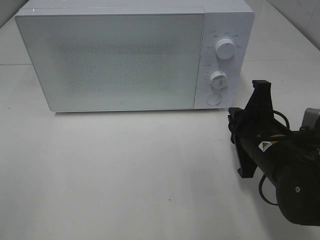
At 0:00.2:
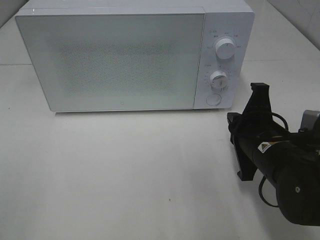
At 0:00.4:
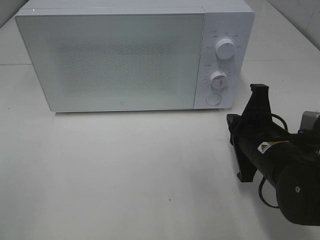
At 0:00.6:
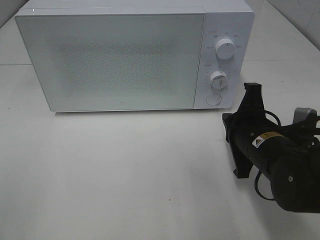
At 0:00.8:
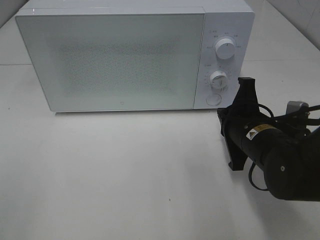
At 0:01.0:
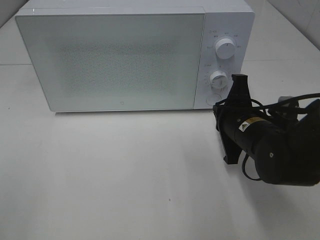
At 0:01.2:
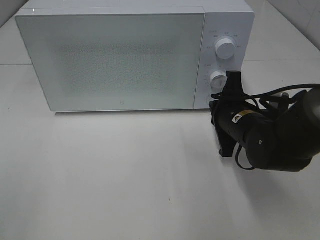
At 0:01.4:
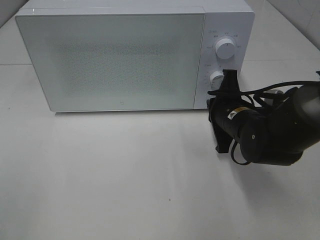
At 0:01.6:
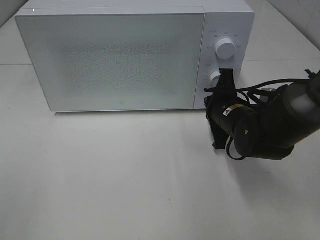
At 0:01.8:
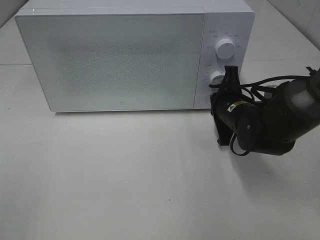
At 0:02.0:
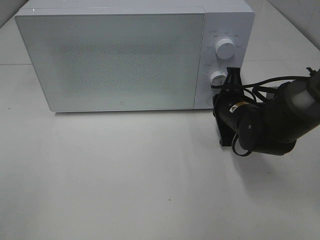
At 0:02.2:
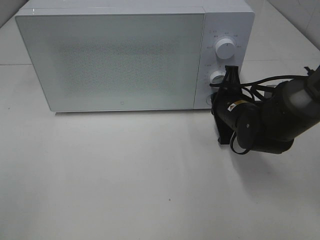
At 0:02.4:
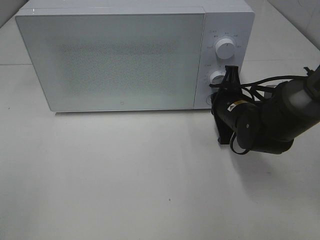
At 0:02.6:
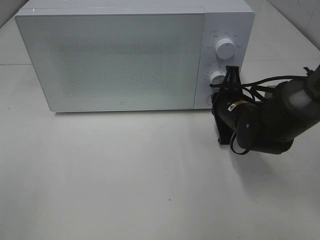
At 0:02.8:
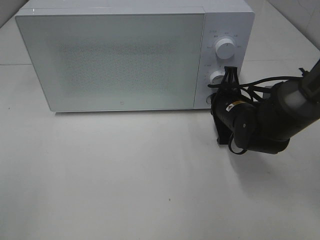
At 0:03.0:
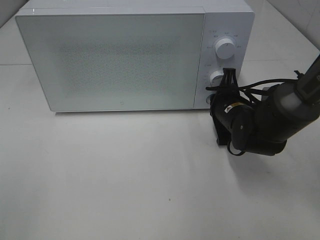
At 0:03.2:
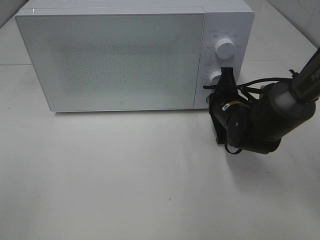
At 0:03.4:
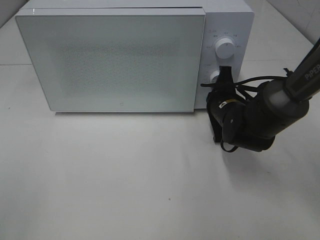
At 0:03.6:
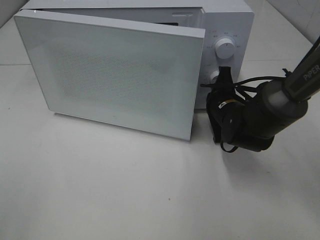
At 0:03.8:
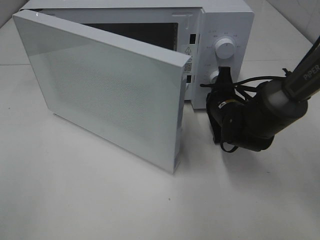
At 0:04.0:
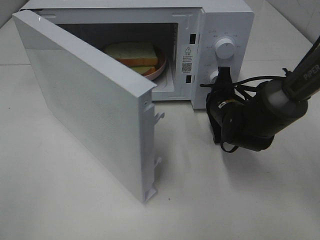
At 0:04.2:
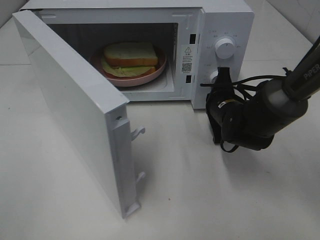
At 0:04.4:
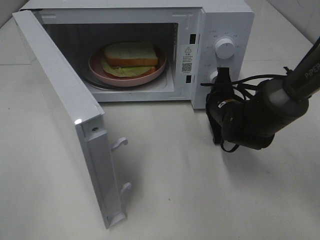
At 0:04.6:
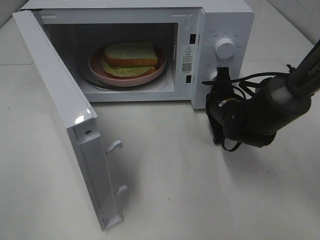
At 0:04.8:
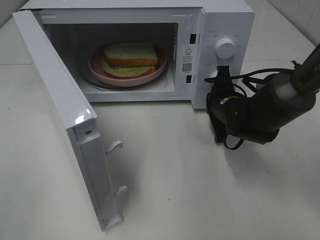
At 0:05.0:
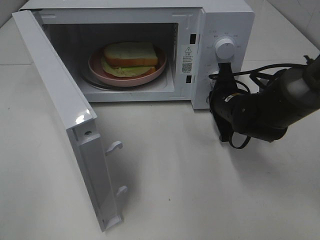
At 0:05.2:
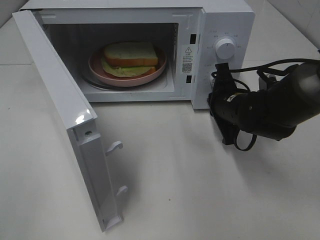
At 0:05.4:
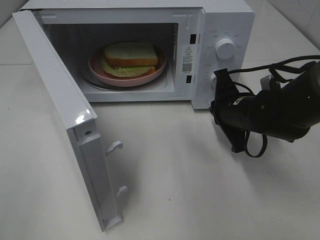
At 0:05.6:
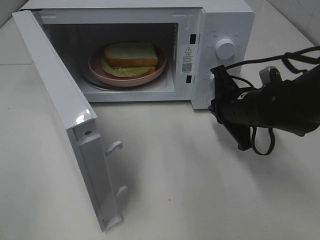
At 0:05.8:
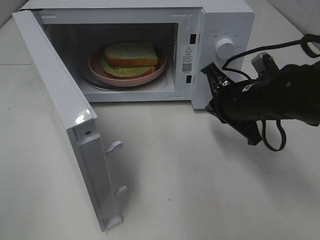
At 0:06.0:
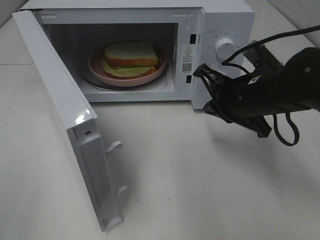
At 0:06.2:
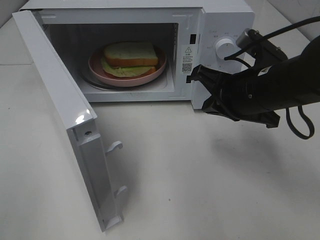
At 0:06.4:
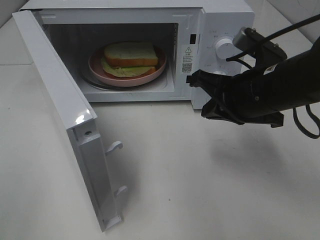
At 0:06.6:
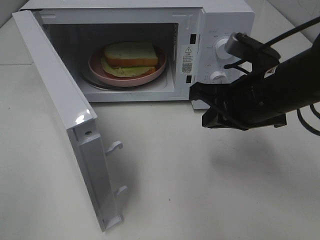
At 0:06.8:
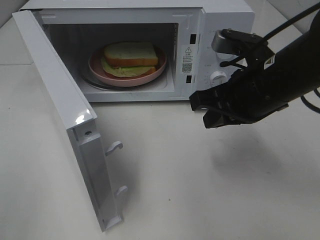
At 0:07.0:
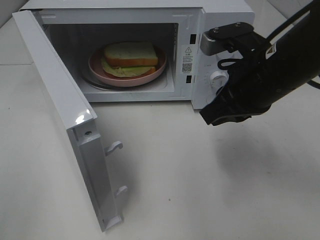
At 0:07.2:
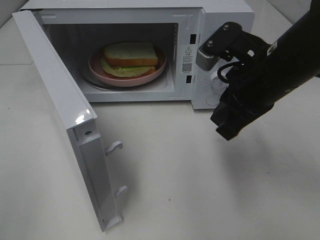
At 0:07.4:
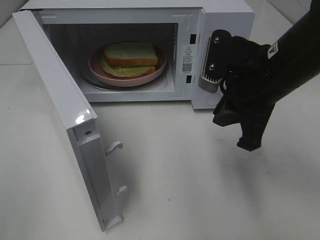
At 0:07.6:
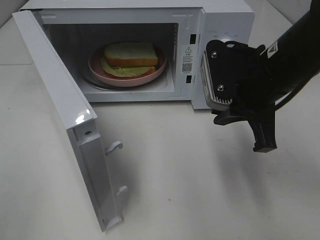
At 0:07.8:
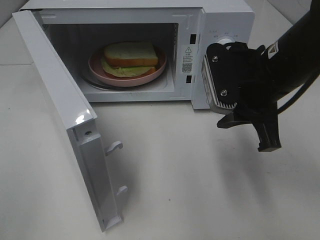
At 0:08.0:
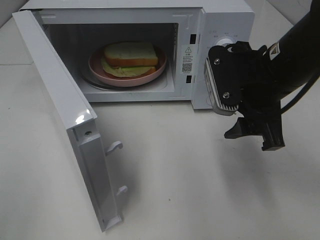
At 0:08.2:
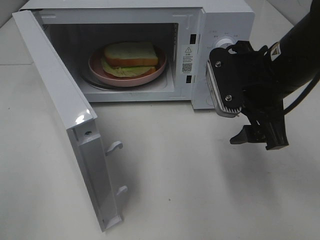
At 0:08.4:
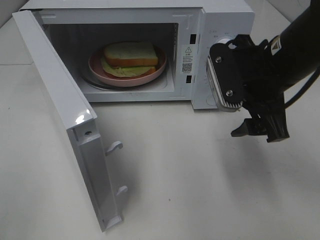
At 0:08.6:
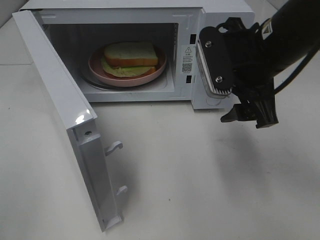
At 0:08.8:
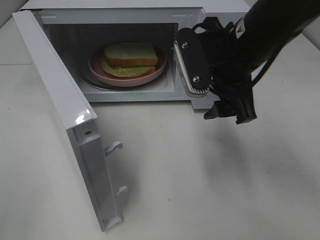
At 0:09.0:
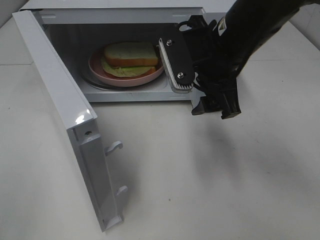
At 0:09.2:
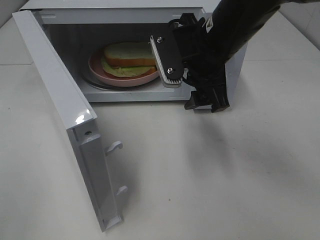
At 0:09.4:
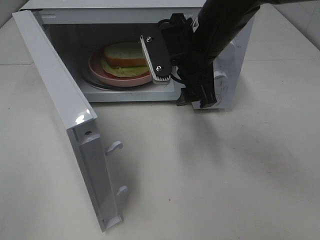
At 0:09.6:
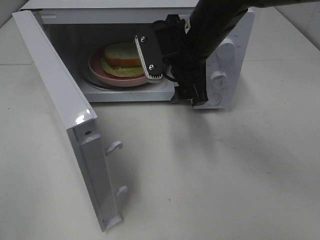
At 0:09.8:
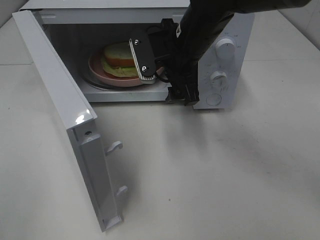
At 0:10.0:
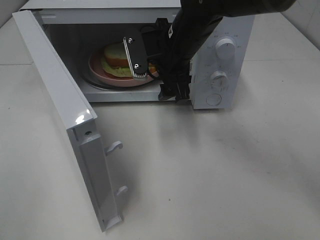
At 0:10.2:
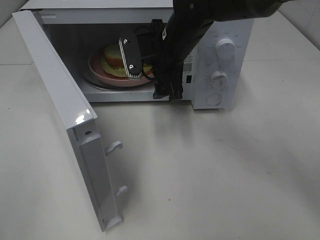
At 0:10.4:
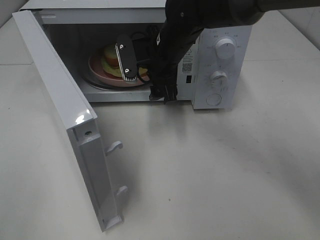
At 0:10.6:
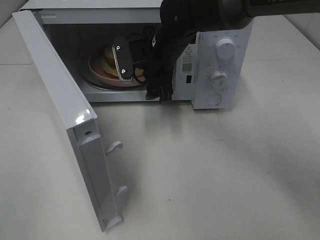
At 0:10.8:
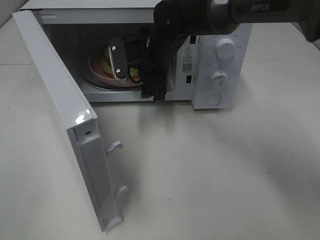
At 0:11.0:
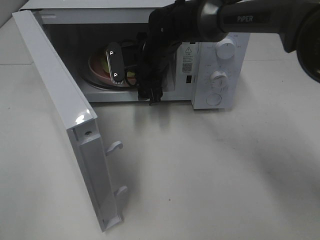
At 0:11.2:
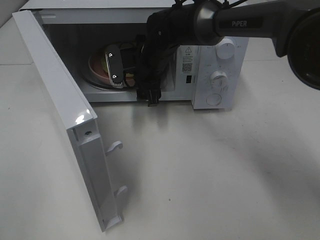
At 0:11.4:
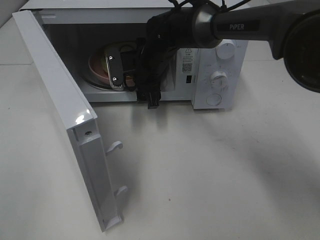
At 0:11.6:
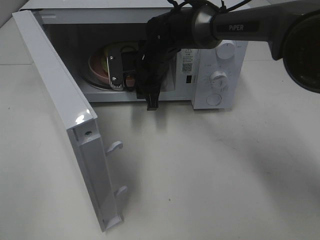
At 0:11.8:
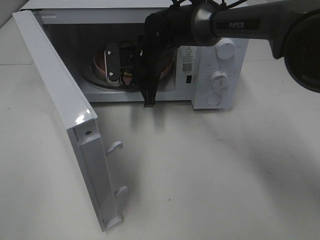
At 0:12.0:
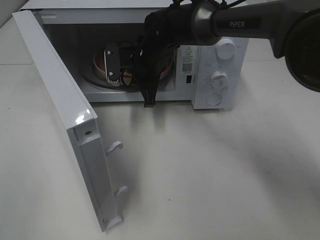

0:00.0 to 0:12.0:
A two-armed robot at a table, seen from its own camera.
Task of the whole recording: Heat Sandwich.
Step, 0:00.0 to 0:05.0: Right hand: press the switch.
Step, 0:05.2 to 0:12.0: Right hand: grab the plate with the sandwich.
0:00.0 to 0:01.6: The right gripper shifts some 10 cm forward.
0:01.6 to 0:03.0: The grippers make only small movements.
0:04.4 to 0:06.0: The right gripper moves upward and backward, some 10 cm.
0:06.0 to 0:07.6: The right gripper goes approximately 5 cm upward.
0:07.6 to 0:09.0: The right gripper travels to the left by about 5 cm, and opens up.
0:09.0 to 0:10.4: The right gripper moves forward, to the left and downward, about 15 cm.
0:10.4 to 0:12.0: The right gripper changes place by approximately 5 cm, and closes up.

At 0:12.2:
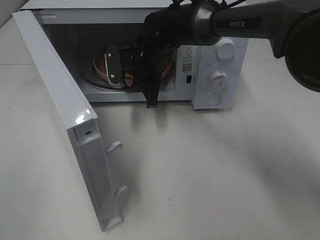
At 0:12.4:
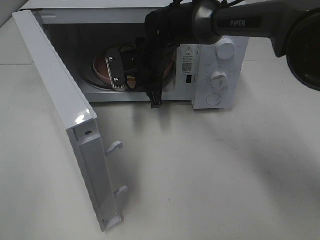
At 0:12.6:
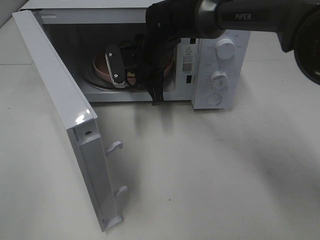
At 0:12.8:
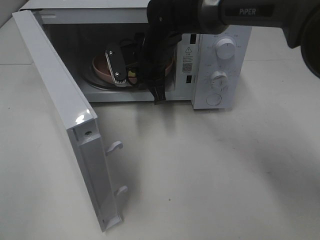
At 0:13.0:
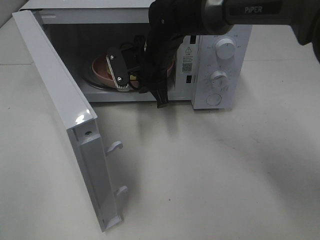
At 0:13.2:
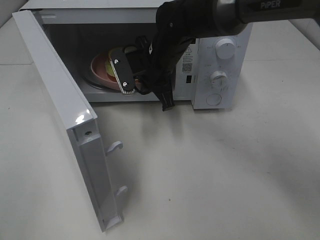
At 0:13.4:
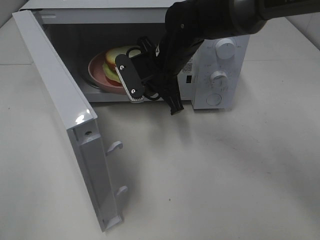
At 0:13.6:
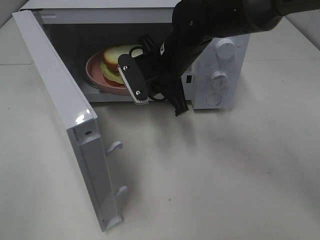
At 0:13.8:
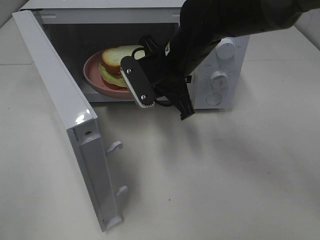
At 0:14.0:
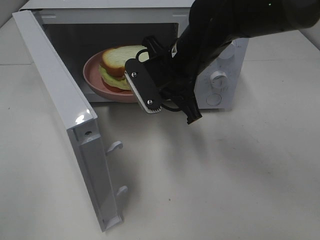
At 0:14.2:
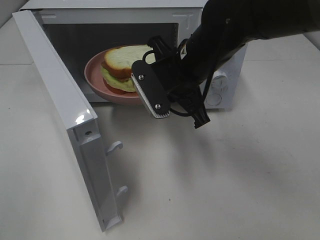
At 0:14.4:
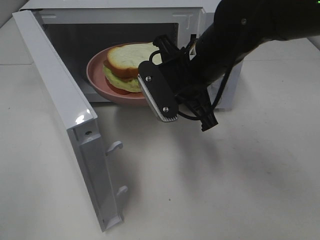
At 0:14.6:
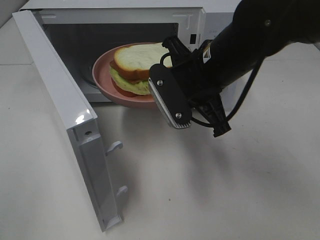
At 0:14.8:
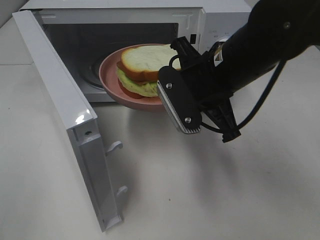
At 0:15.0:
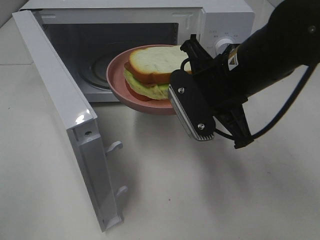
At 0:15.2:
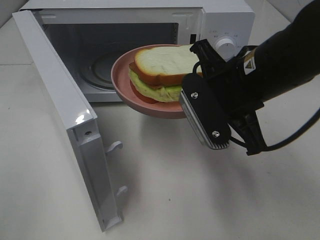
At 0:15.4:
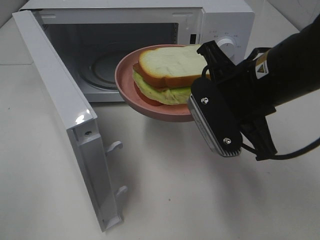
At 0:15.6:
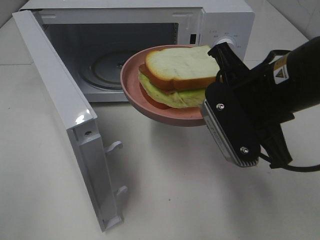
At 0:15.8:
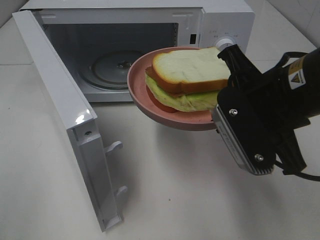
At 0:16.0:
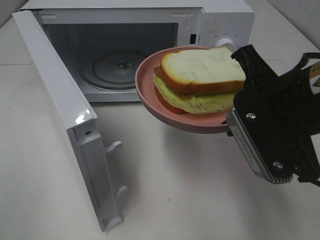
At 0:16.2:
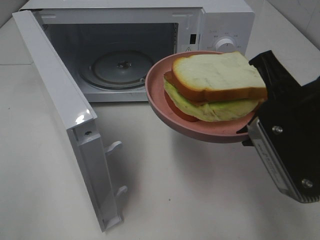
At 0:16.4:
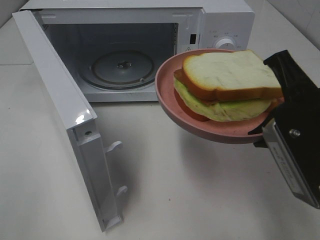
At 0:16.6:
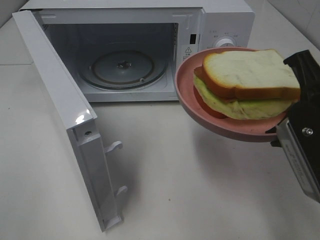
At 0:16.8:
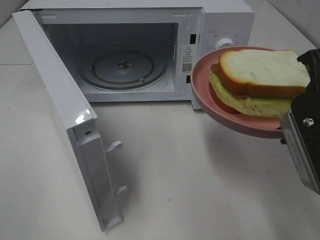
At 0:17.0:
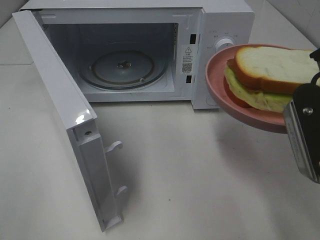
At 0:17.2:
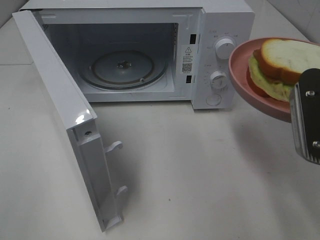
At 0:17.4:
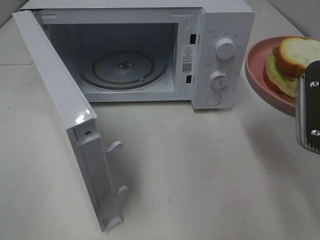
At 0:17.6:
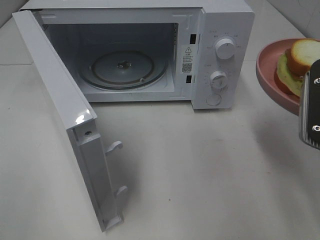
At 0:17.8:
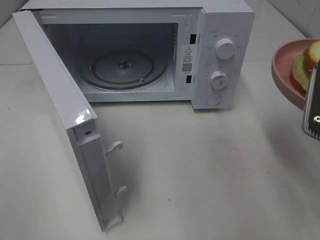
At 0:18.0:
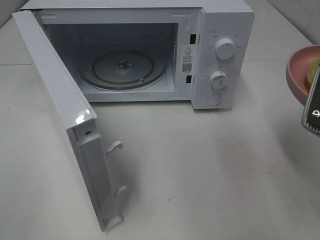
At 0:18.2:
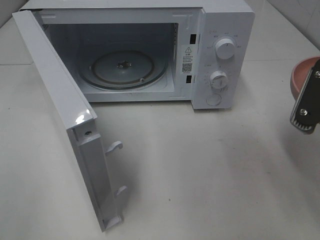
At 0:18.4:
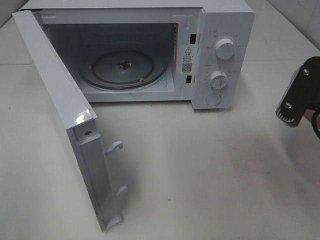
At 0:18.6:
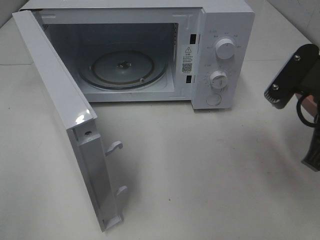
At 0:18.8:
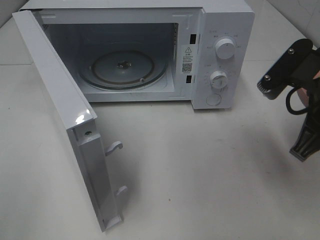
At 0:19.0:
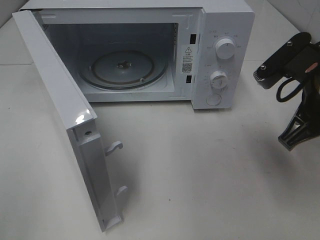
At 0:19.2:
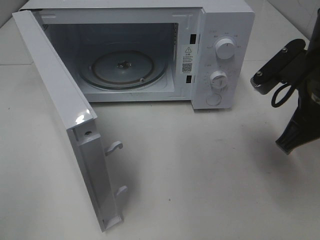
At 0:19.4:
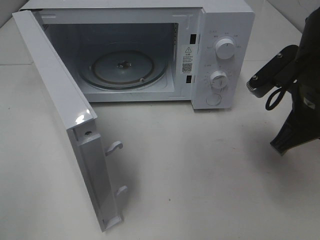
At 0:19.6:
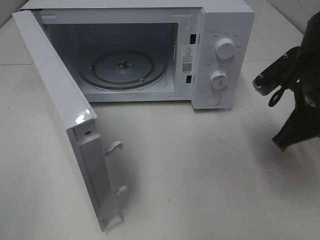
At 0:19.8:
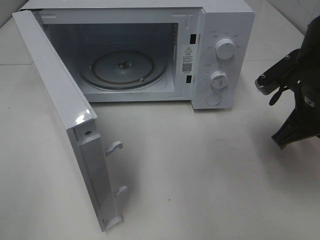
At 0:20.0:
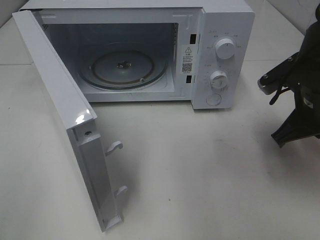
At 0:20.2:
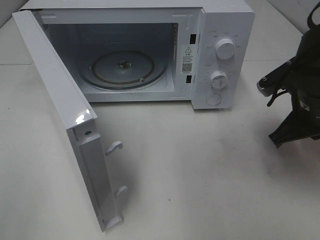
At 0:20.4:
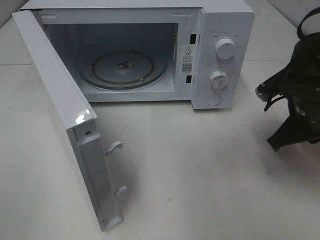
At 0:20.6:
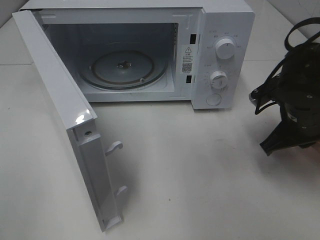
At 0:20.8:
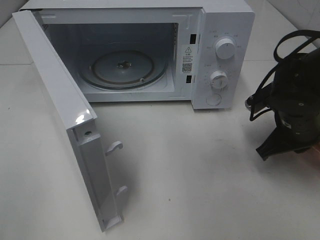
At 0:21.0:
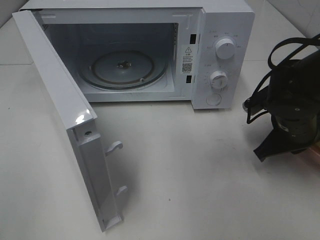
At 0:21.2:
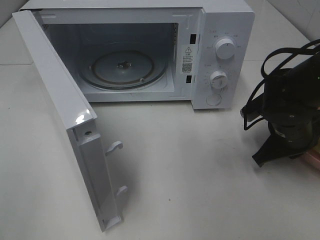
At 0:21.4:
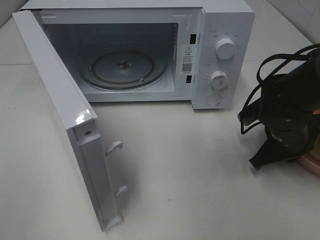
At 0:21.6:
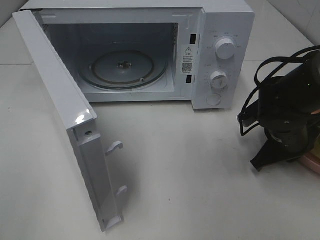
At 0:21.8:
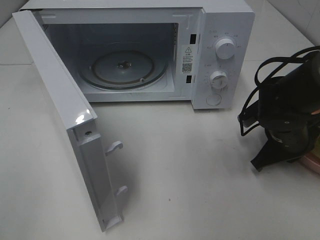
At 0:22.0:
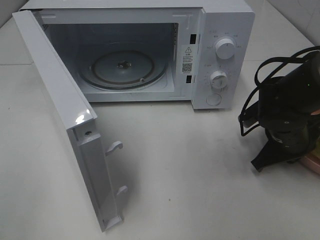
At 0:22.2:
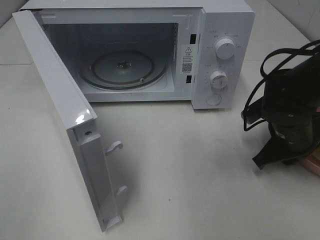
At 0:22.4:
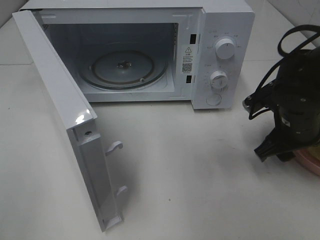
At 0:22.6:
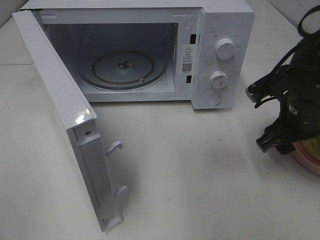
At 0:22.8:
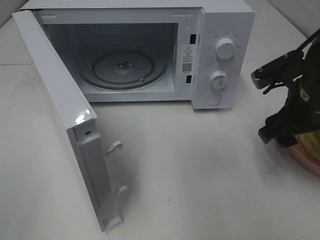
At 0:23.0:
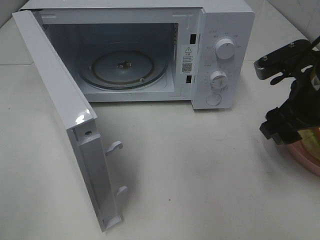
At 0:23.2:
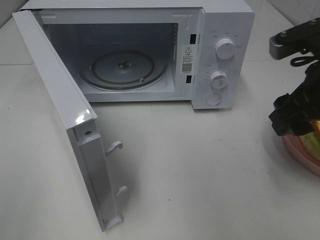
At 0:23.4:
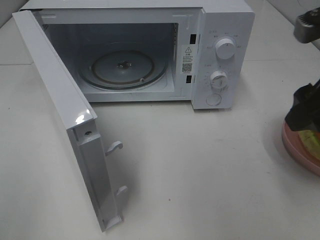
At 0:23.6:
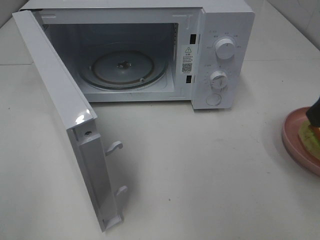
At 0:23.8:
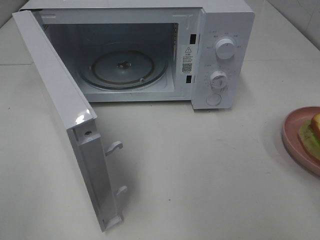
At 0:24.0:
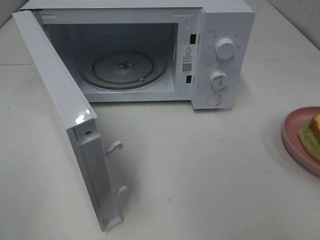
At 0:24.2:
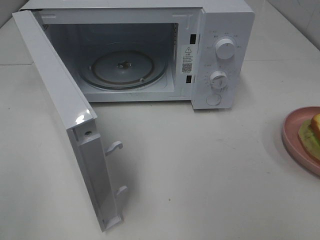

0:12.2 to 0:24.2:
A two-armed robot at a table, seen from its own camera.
Task of the whole recording: Heat Sandwich.
Step, 0:12.2 to 0:23.0: Right hand: place the plate on the table.
0:12.2 to 0:13.8: The right gripper heads backward and upward, covering some 10 cm.
0:13.8 to 0:15.2: The right gripper travels backward and to the right by about 15 cm.
0:15.2 to 0:16.6: The right gripper goes some 10 cm backward and to the right.
0:18.2 to 0:19.8: The right gripper heads forward and downward, covering about 10 cm.
0:19.8 to 0:21.2: The right gripper shifts some 10 cm downward.
0:21.2 to 0:22.6: The right gripper shifts approximately 5 cm upward, and opens.
0:22.6 to 0:24.2: The right gripper moves backward and upward, approximately 25 cm.
